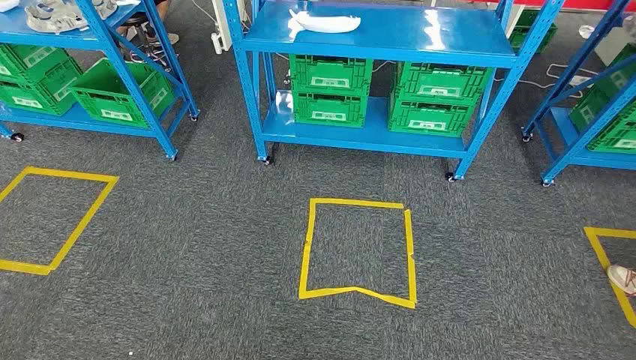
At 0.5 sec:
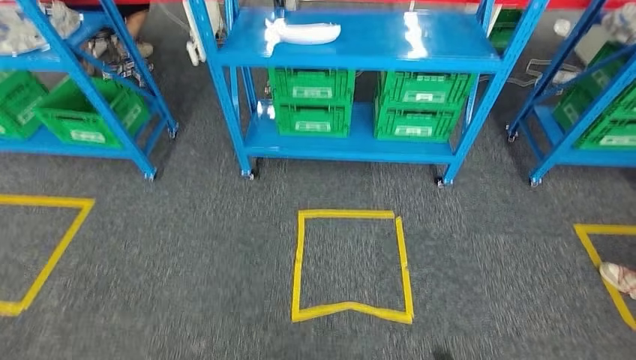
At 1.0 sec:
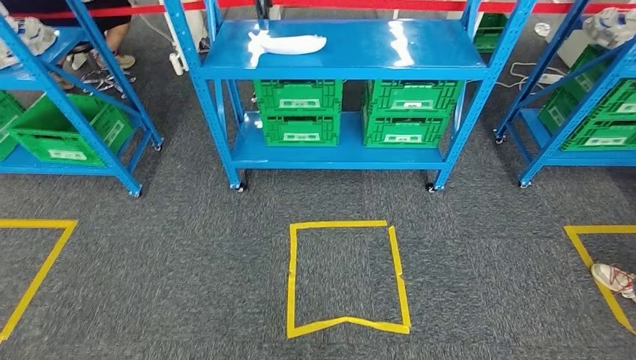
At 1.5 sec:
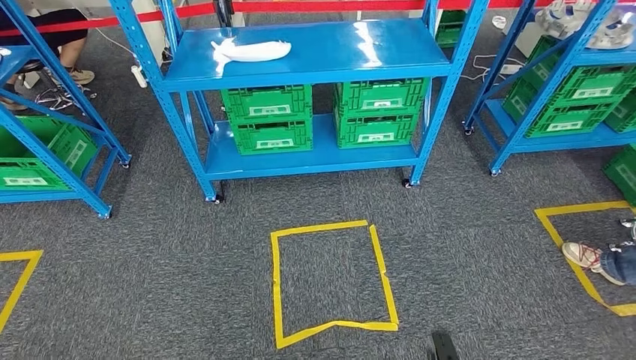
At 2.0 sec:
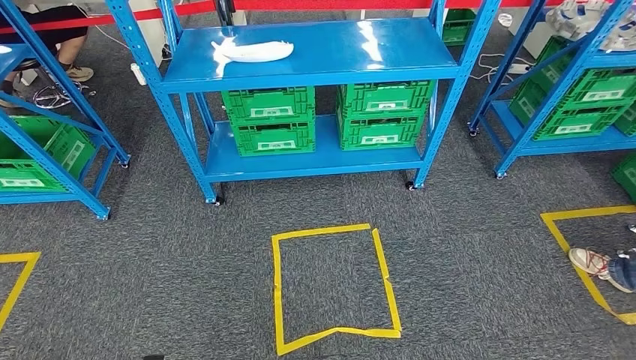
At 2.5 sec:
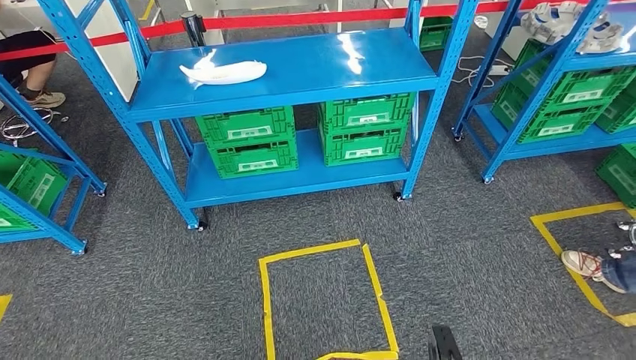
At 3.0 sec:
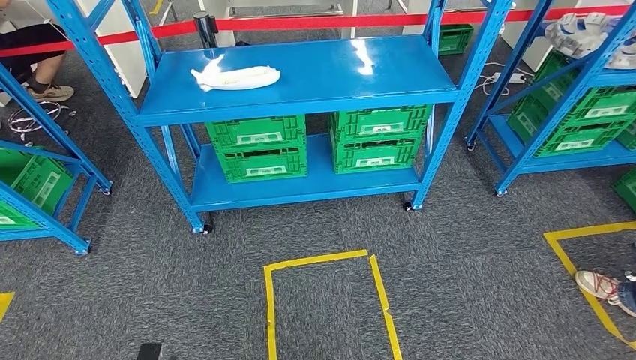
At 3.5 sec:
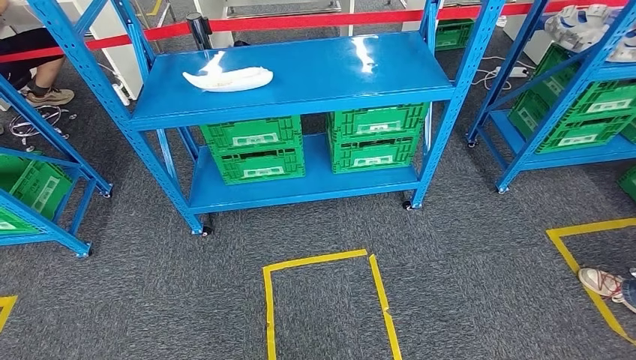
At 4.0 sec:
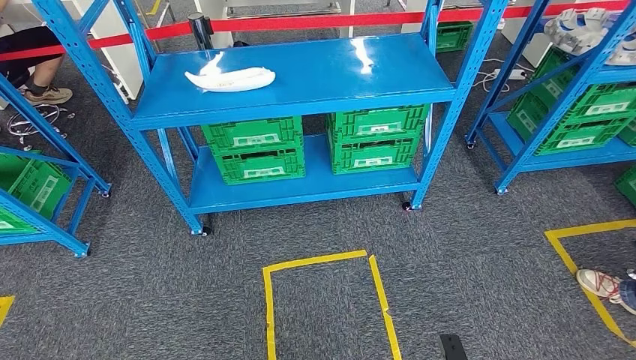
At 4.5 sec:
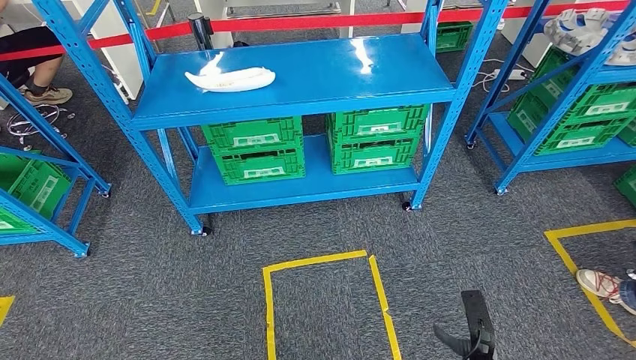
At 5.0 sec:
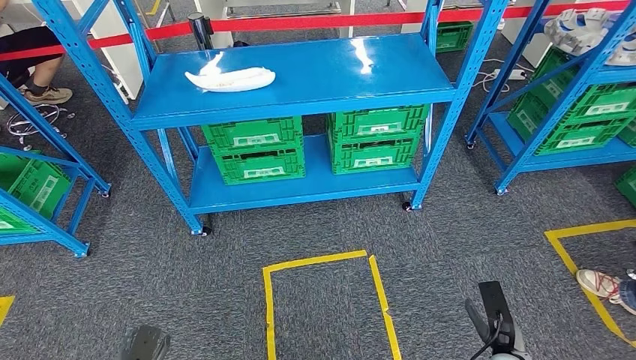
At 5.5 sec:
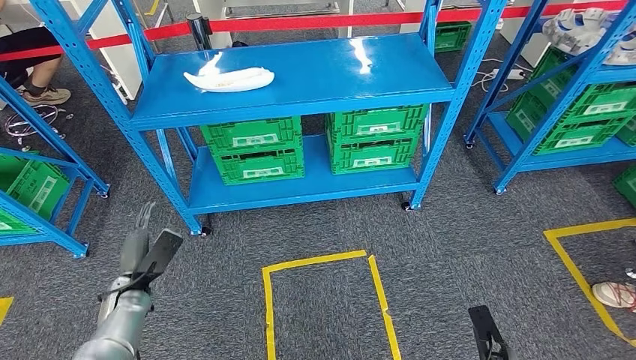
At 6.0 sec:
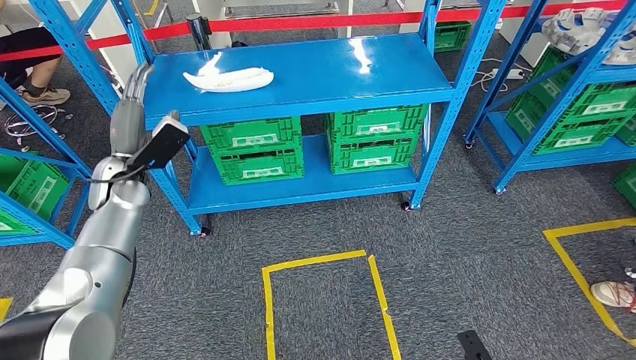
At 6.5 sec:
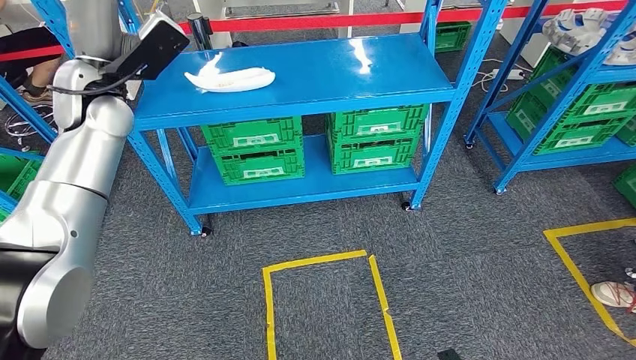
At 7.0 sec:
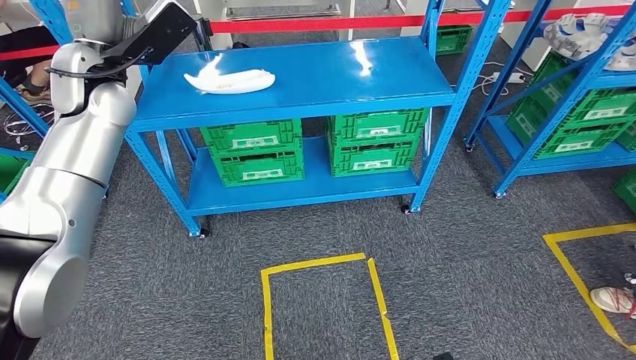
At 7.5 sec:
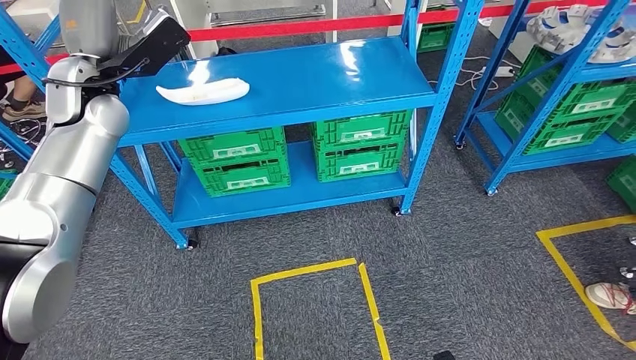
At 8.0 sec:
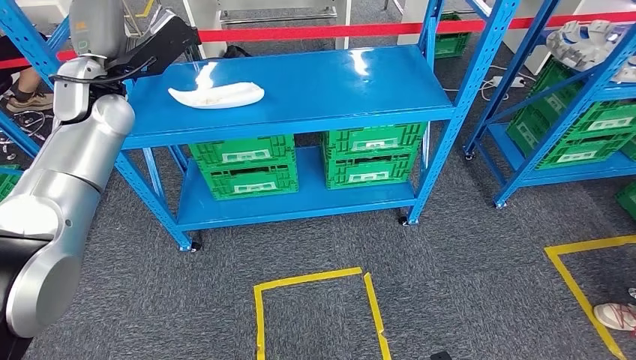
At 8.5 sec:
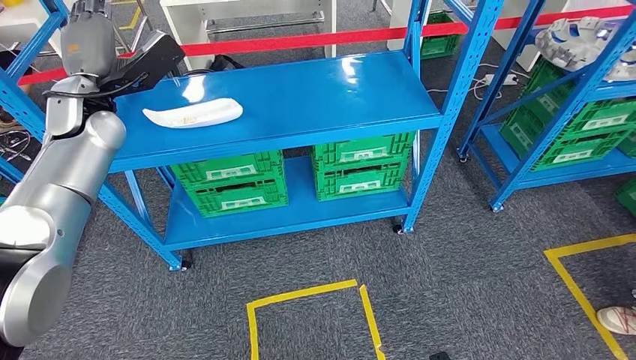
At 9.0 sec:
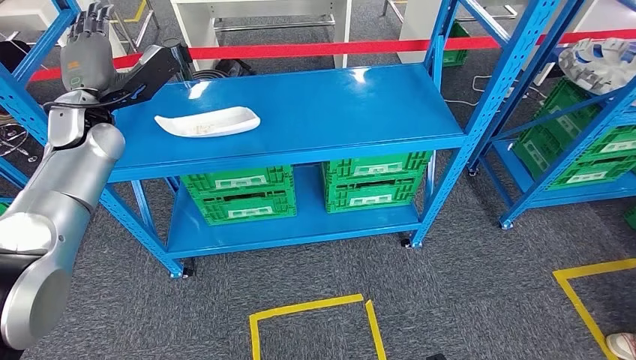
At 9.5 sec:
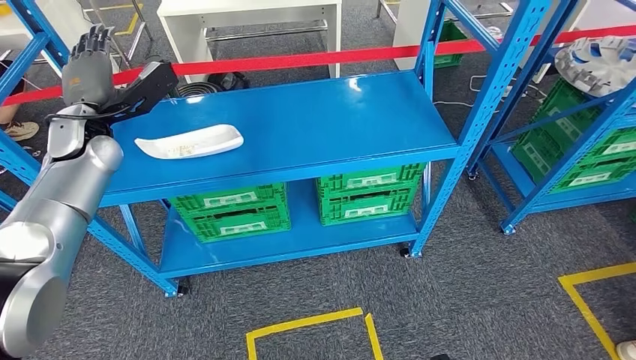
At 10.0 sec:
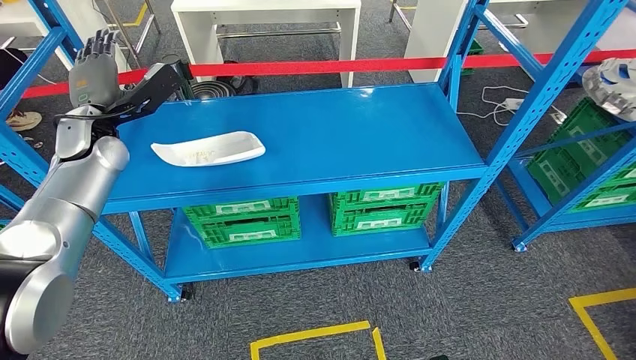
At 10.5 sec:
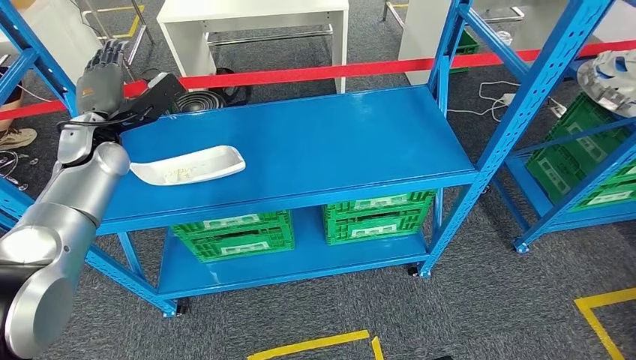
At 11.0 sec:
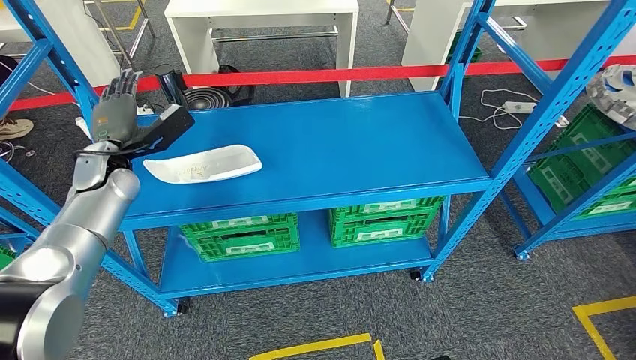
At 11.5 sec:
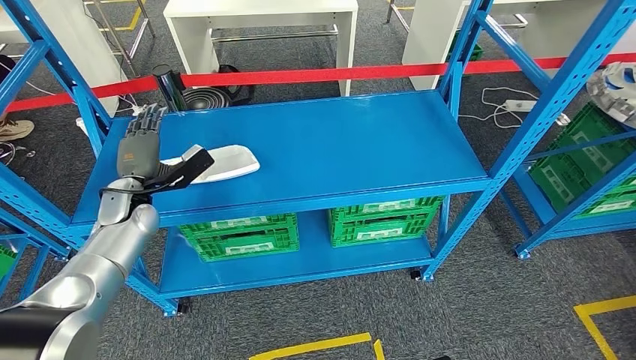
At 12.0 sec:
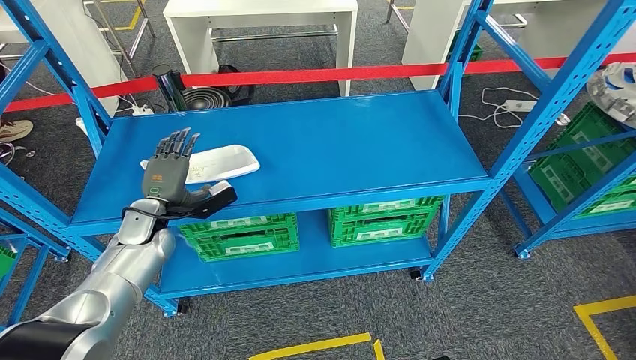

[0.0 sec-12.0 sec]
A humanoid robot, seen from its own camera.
4.0 sec to 6.0 sec: The left hand heads forward and upward, covering some 50 cm. Meanwhile the right hand travels to the right by roughly 5 cm, and travels forward and back again, roughly 10 cm each way.

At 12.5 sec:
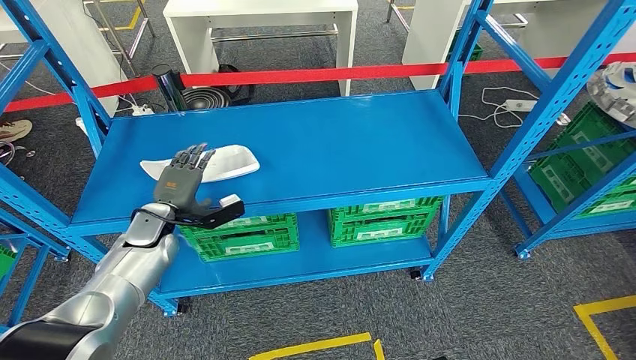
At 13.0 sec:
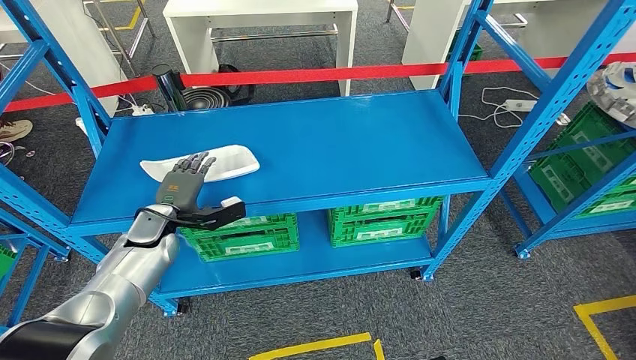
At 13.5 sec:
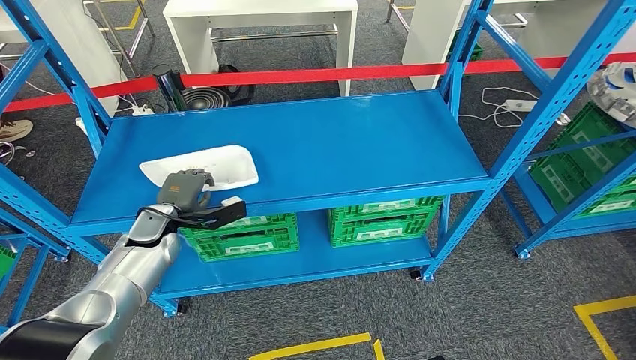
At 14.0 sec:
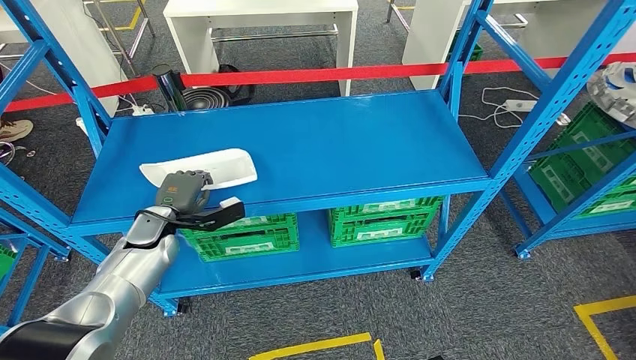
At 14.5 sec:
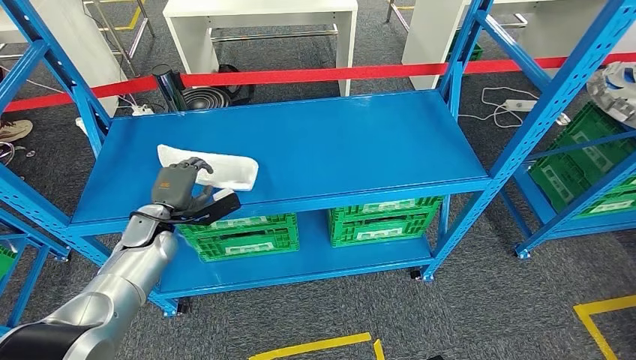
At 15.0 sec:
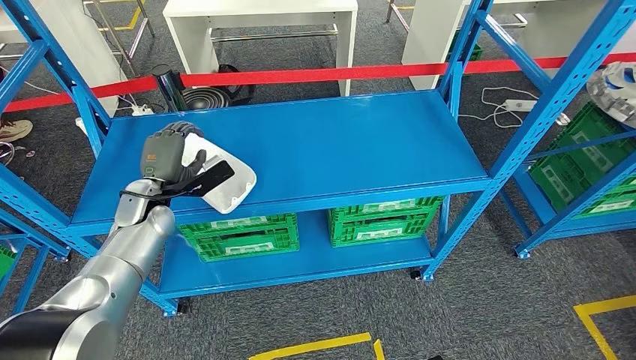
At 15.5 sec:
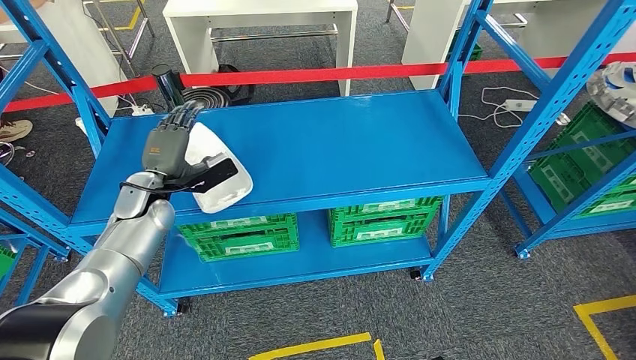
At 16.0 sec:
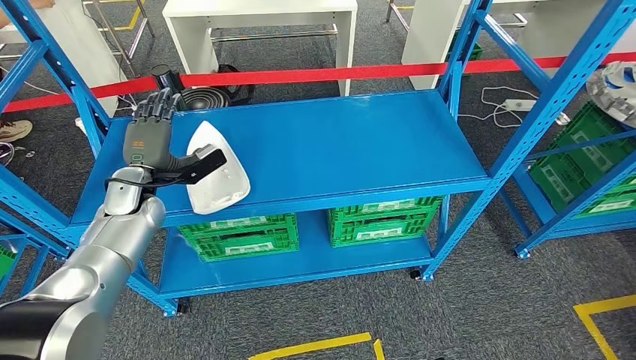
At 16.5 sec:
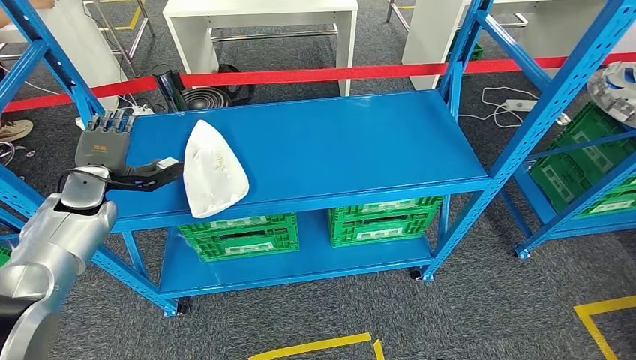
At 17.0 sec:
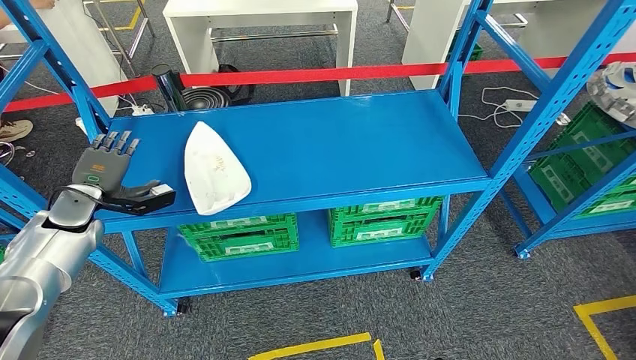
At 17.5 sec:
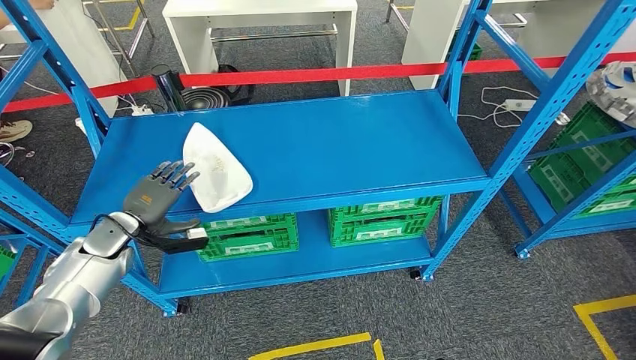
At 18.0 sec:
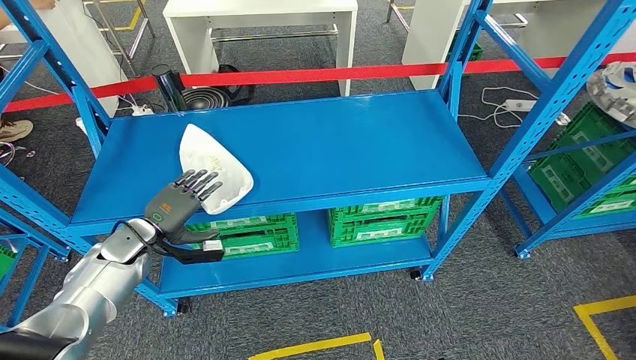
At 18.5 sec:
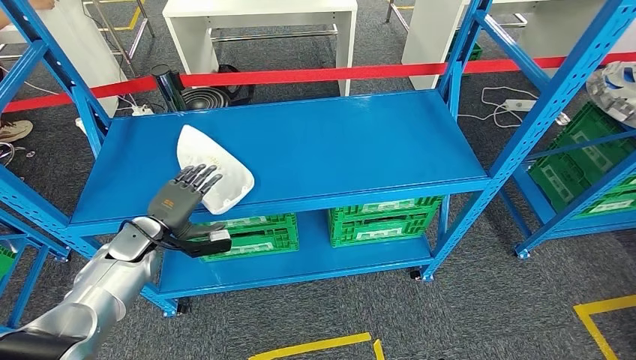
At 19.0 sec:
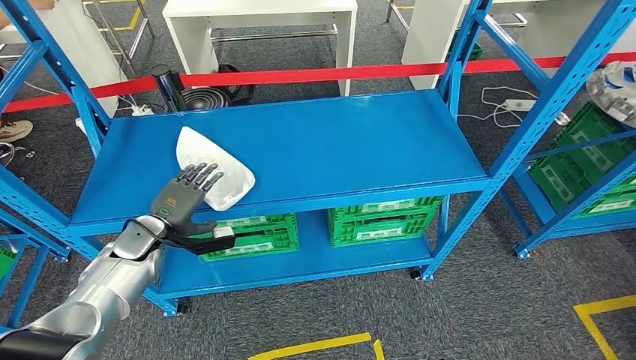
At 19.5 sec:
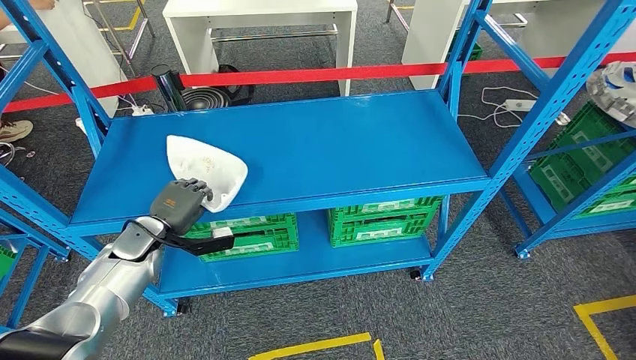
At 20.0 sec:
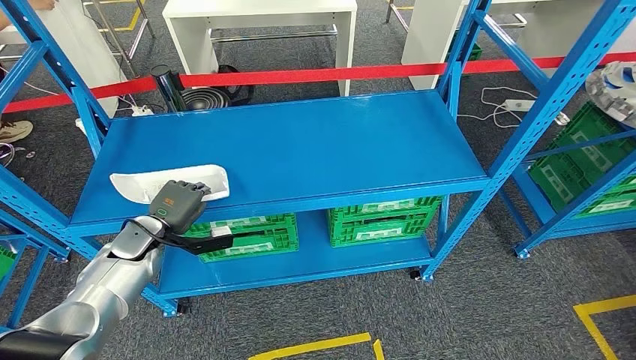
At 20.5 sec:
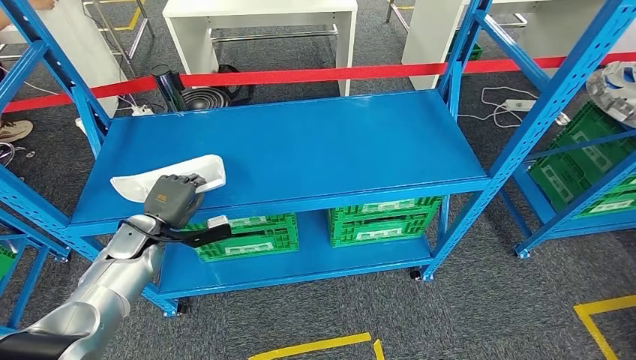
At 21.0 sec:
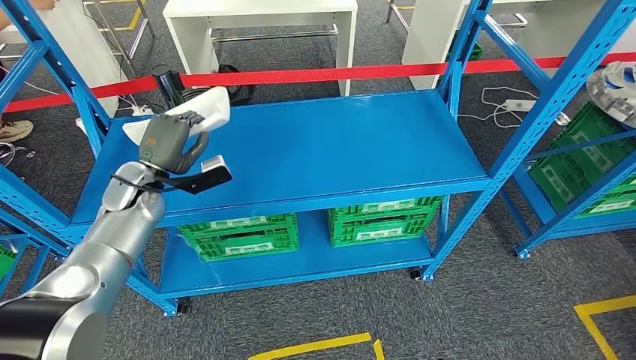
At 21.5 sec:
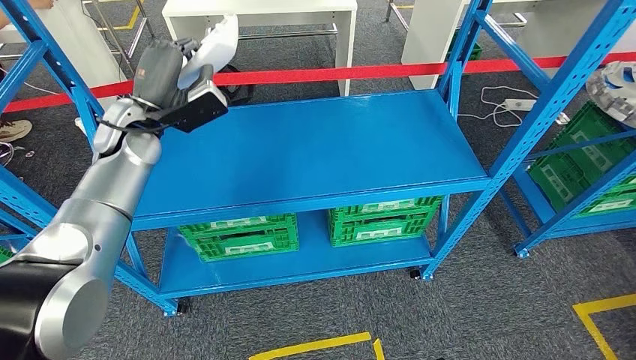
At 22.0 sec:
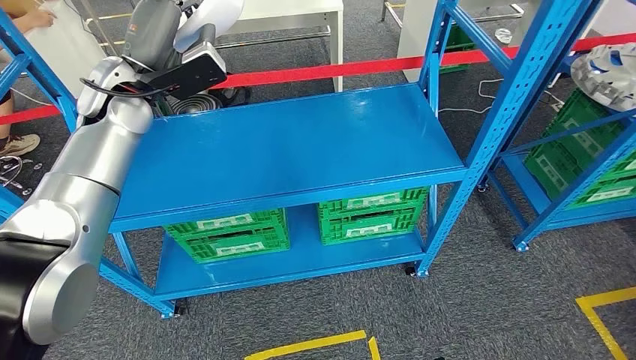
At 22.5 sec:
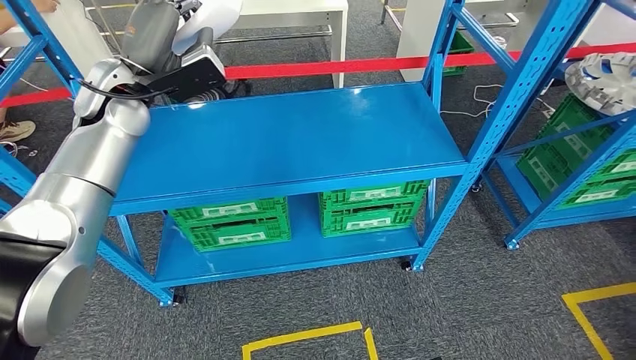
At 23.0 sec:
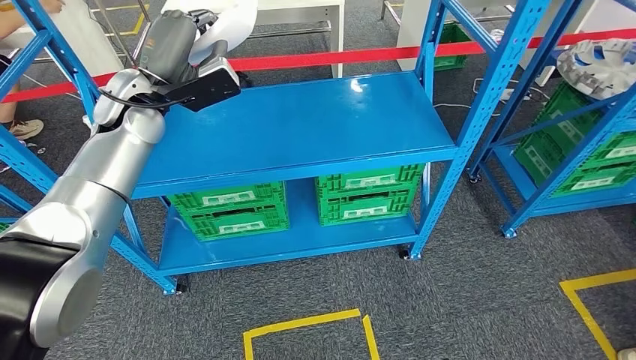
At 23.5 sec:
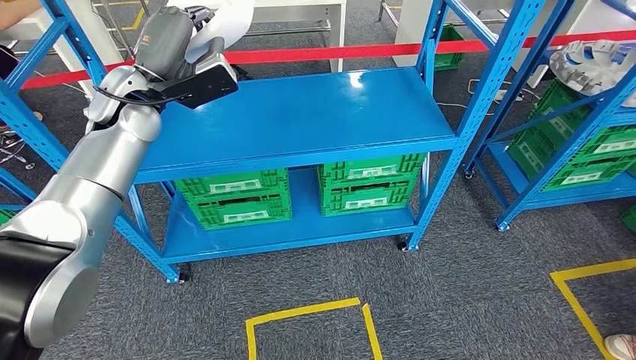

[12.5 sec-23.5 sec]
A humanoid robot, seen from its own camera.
Step, 12.5 sec to 21.0 sec: Pick up the small component from the shelf.
12.5 sec to 14.5 sec: The hands move only a little.
14.5 sec to 16.0 sec: The left hand is displaced upward by roughly 5 cm.
16.0 sec to 18.0 sec: The left hand shifts roughly 10 cm downward, backward and to the left.
18.0 sec to 20.0 sec: The hands move only a little.
20.0 sec to 21.5 sec: The left hand shifts roughly 25 cm upward and forward.
